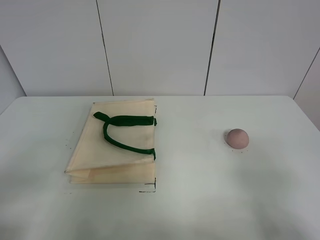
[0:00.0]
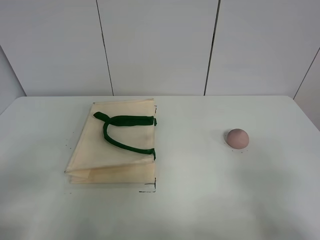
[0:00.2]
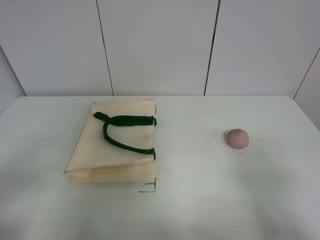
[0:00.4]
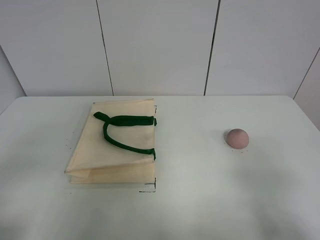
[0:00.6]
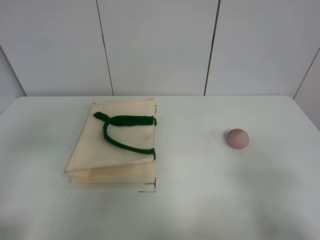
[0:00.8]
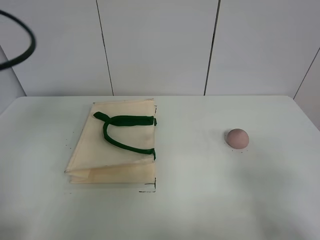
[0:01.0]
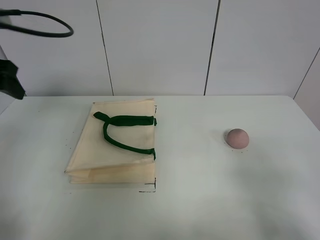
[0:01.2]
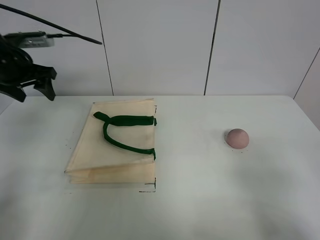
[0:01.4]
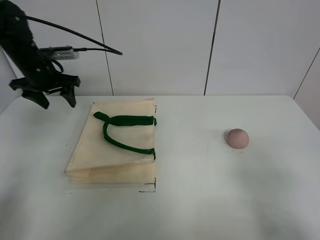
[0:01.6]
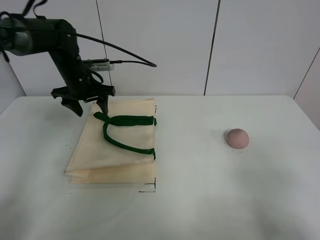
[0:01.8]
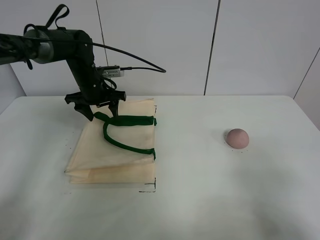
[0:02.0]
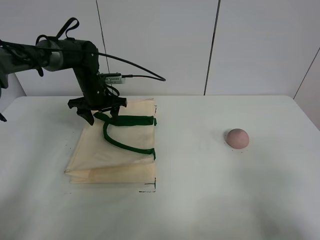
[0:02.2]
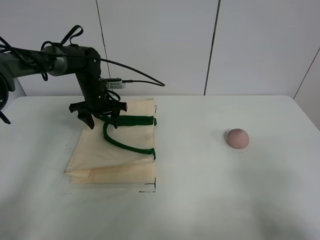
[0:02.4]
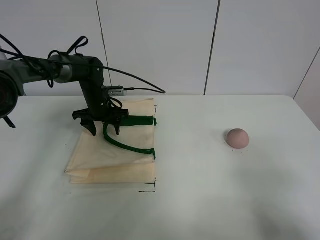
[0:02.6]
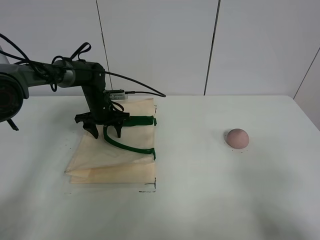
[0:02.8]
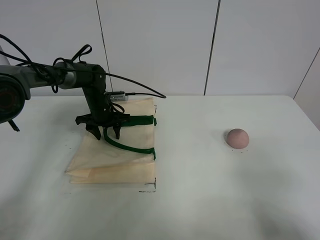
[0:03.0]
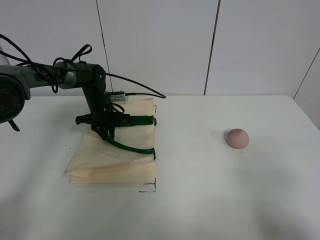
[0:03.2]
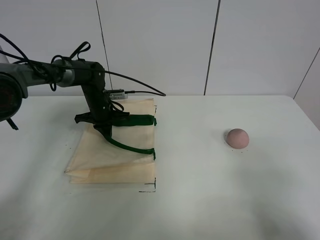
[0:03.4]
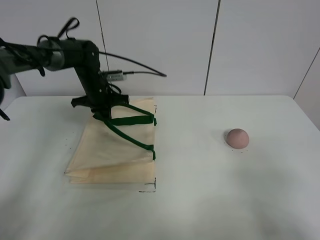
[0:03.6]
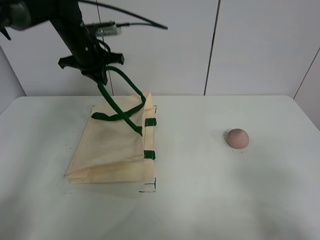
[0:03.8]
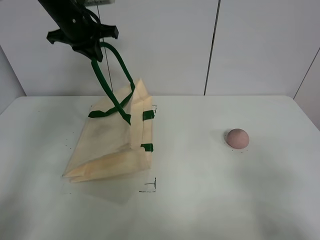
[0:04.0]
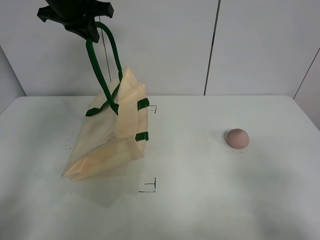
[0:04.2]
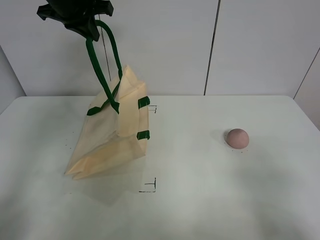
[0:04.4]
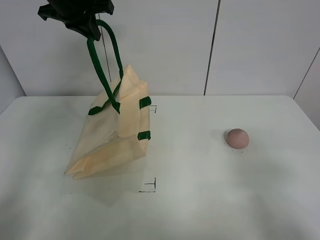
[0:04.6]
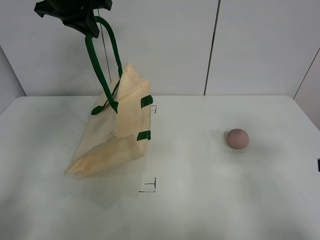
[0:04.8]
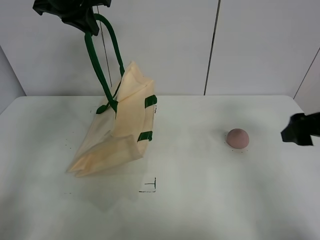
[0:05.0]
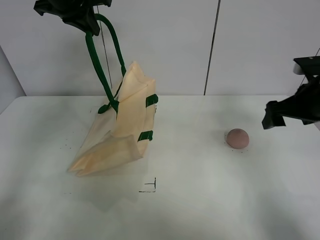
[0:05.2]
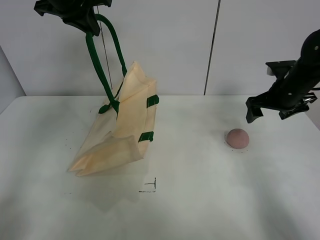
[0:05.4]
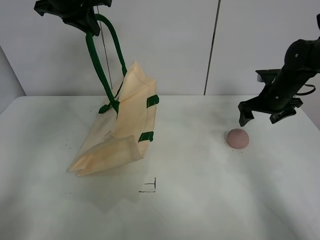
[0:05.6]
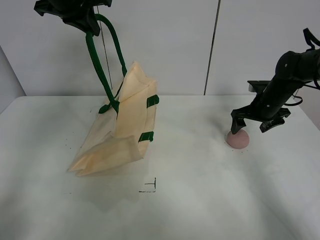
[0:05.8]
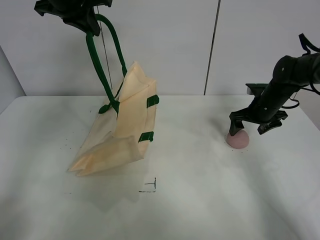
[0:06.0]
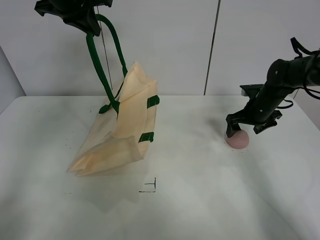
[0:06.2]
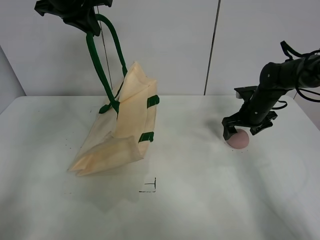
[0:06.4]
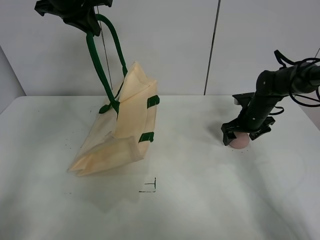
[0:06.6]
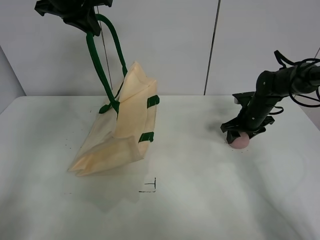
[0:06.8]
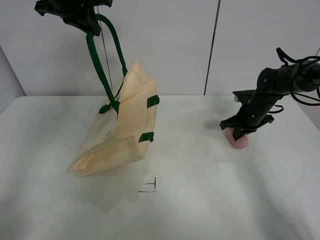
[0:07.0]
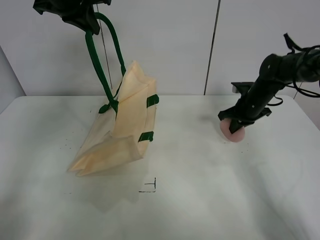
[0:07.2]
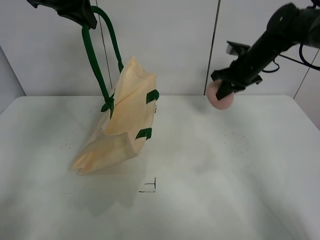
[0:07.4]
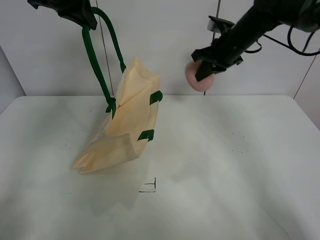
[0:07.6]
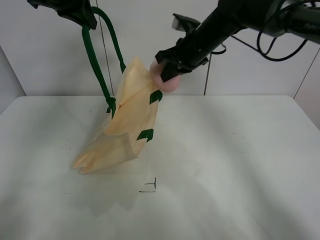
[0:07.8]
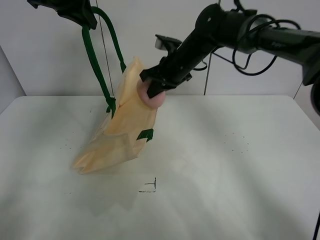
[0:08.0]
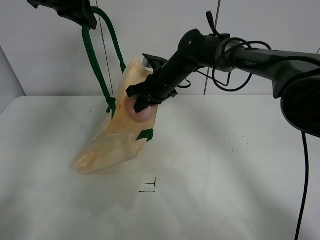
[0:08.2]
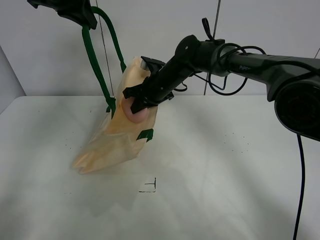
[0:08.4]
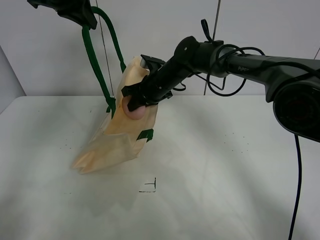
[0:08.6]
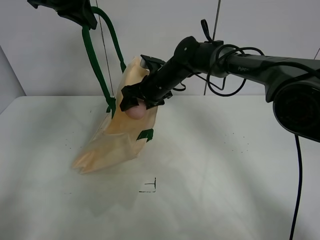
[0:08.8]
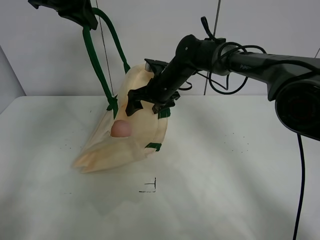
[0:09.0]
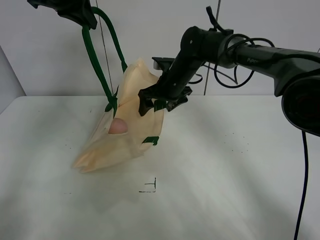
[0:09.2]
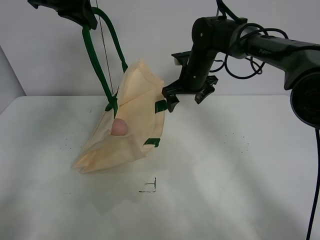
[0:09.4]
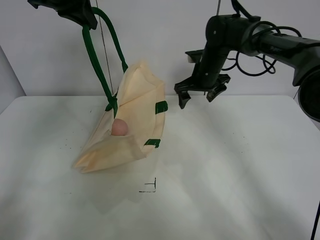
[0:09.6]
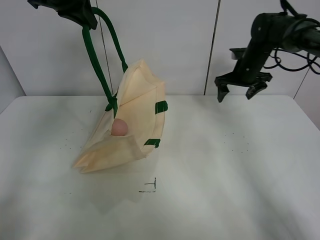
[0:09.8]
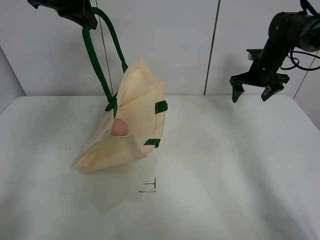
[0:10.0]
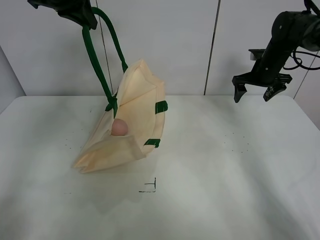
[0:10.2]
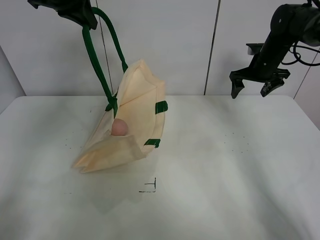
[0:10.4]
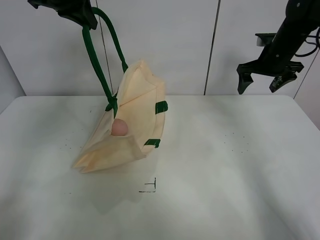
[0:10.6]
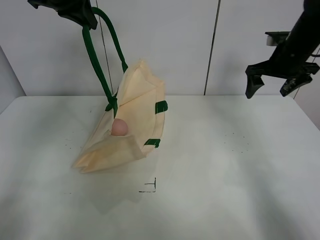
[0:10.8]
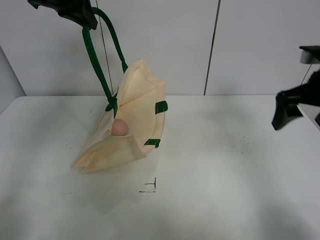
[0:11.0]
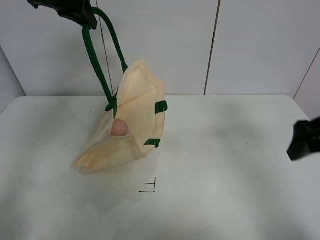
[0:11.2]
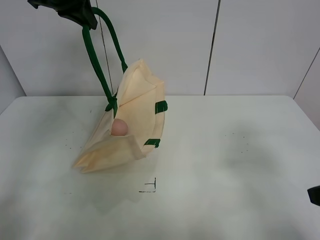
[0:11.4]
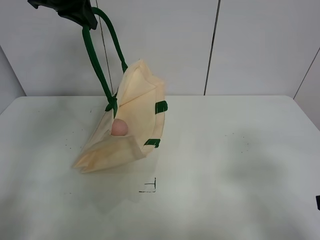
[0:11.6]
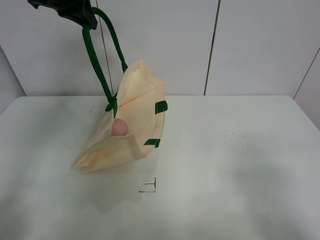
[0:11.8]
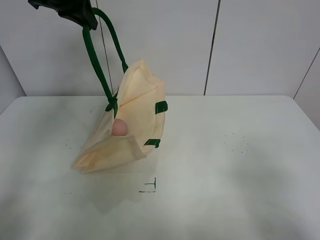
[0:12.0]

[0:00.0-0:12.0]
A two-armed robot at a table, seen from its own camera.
Task of the whole recording: open the white linen bag and put the peach in the bag.
Step, 0:00.0 to 0:04.4: Lift the handbag with left gripper.
Step, 0:04.6 to 0:07.0: Grasp the peach with right gripper.
Step, 0:07.2 to 0:09.2: Place the peach in the handbag with right gripper.
0:00.0 to 0:01.6: The left gripper is displaced forward by roughly 40 cm.
0:01.6 to 0:03.0: The left gripper goes about 15 cm downward and to the right.
0:03.0 to 0:04.4: The left gripper moves upward, about 30 cm, and closes up.
0:04.4 to 0:06.0: The right gripper goes roughly 40 cm forward.
0:06.0 to 0:07.6: The right gripper moves upward and to the left, roughly 20 cm, and closes.
0:07.6 to 0:09.0: The right gripper travels to the left and downward by about 15 cm, and opens its fingers.
0:09.0 to 0:10.4: The right gripper is displaced to the right by approximately 25 cm.
0:10.4 to 0:12.0: The right gripper shifts roughly 50 cm backward.

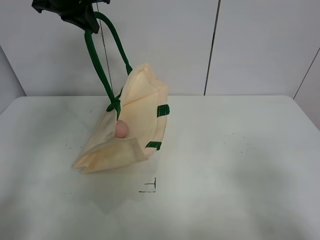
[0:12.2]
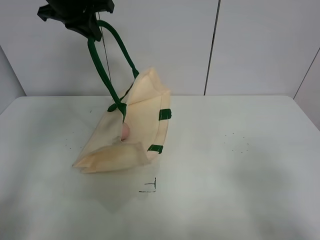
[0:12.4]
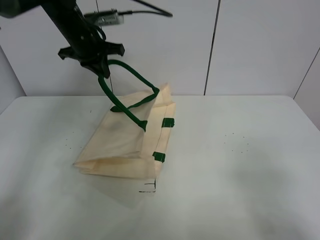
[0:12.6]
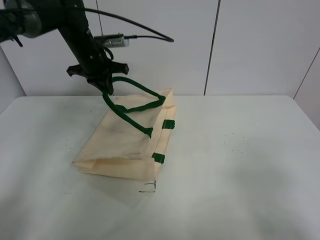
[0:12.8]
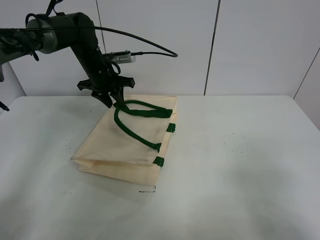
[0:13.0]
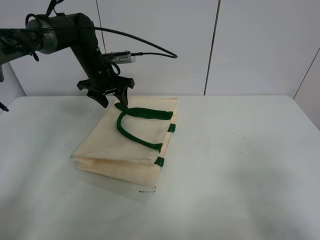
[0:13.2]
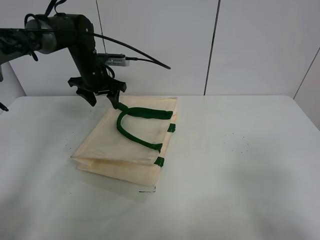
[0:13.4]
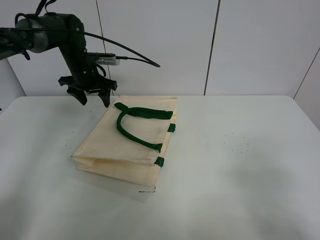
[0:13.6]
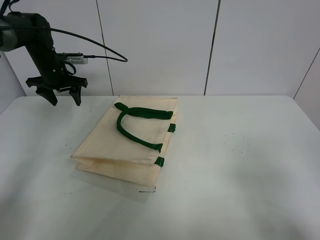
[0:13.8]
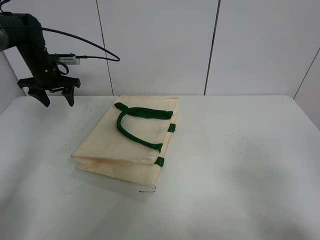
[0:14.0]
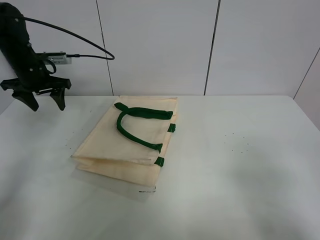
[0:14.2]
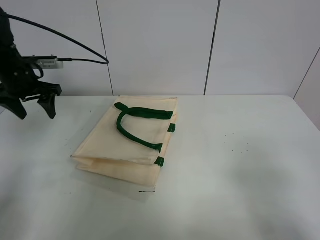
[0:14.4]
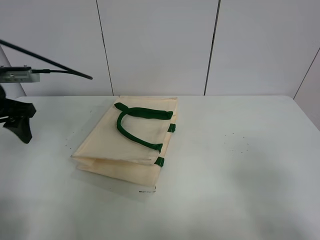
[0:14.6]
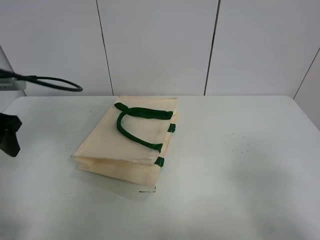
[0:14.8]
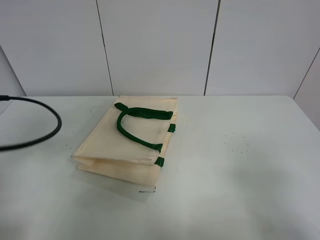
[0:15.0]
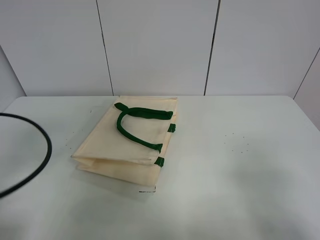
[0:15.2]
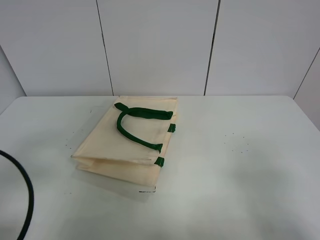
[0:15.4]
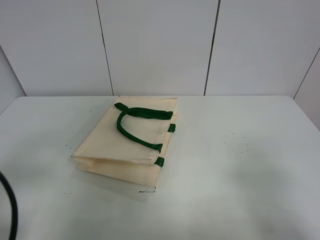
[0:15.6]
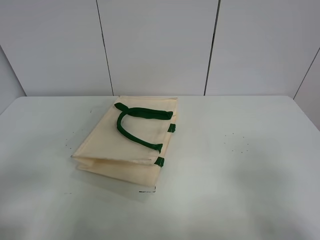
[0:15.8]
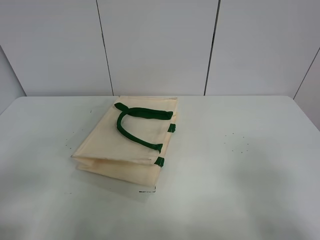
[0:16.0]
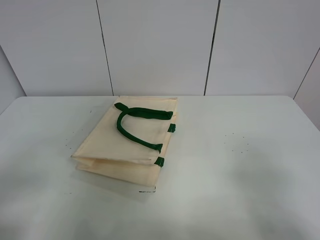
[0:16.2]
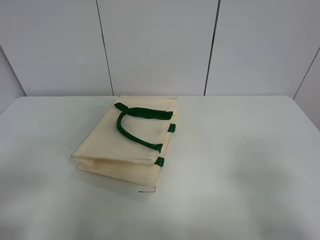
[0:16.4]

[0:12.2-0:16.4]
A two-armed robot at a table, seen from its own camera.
Task of the whole recording: open the white linen bag and put the peach in the bag.
0:12.2 to 0:13.6: The left gripper heads downward, covering about 20 cm, and opens.
0:13.6 to 0:15.0: The left gripper goes some 35 cm backward.
0:15.0 to 0:16.4: The left gripper shifts some 15 cm backward.

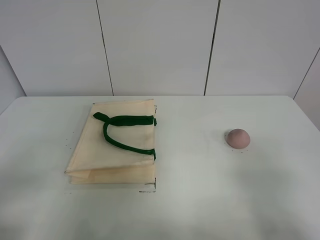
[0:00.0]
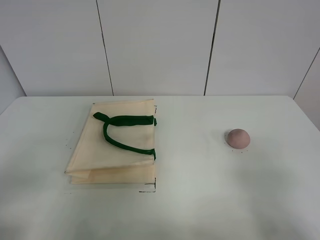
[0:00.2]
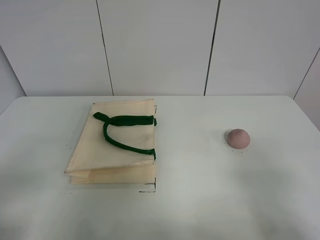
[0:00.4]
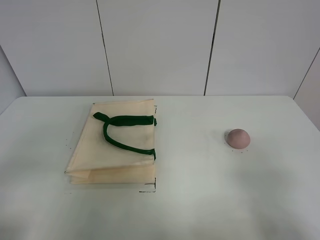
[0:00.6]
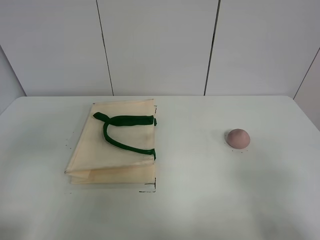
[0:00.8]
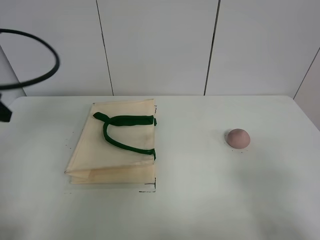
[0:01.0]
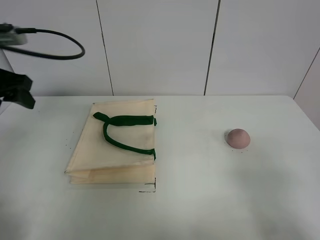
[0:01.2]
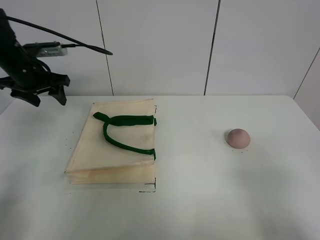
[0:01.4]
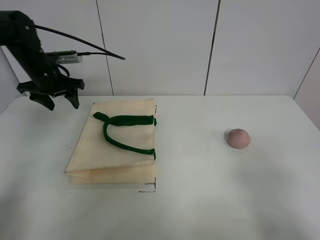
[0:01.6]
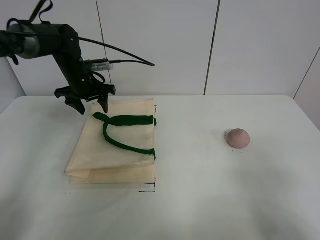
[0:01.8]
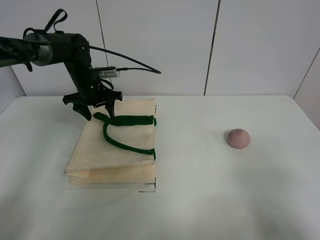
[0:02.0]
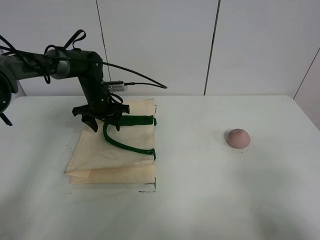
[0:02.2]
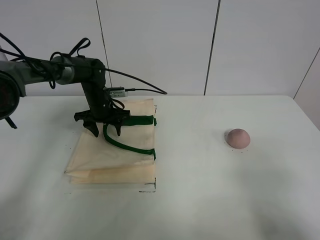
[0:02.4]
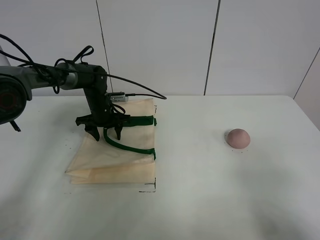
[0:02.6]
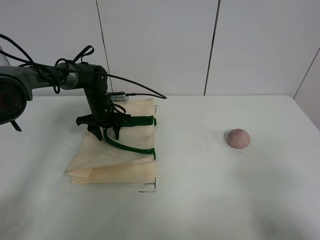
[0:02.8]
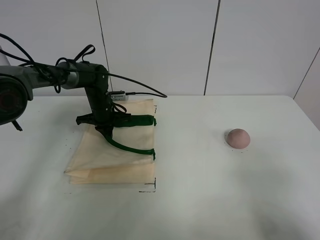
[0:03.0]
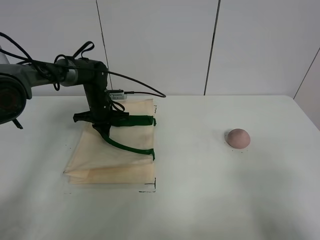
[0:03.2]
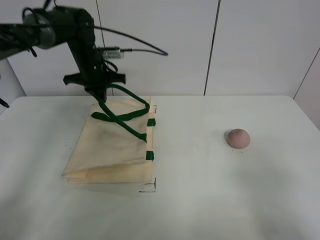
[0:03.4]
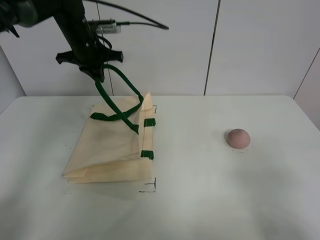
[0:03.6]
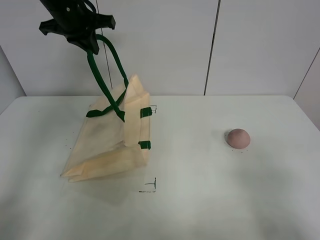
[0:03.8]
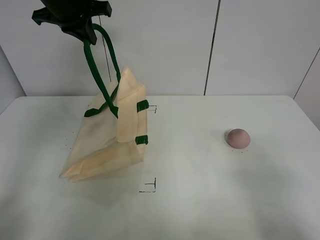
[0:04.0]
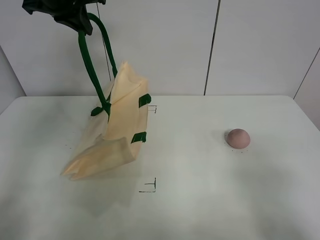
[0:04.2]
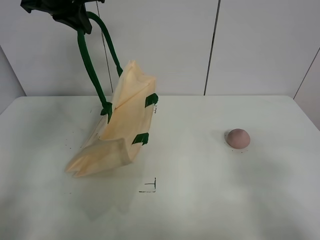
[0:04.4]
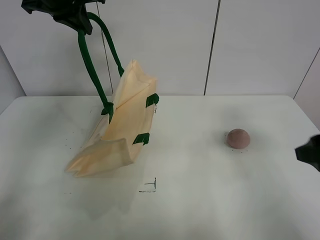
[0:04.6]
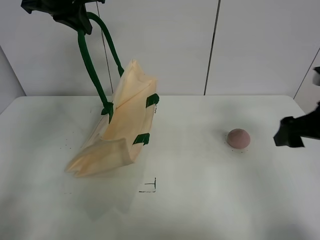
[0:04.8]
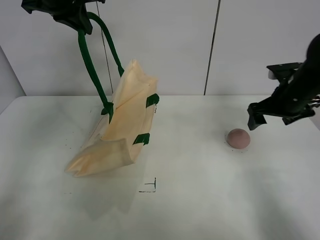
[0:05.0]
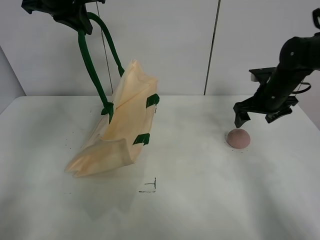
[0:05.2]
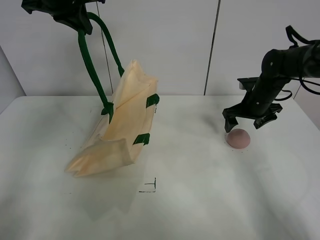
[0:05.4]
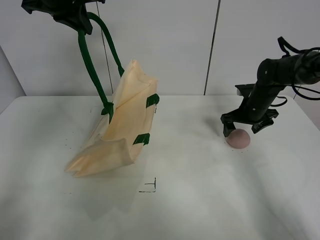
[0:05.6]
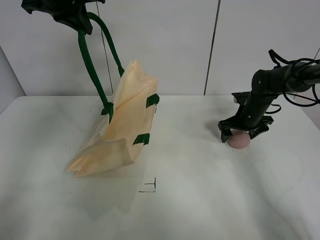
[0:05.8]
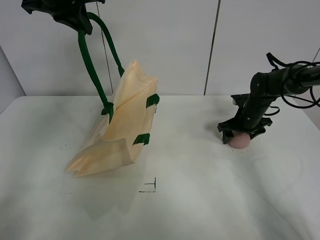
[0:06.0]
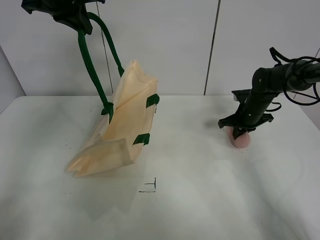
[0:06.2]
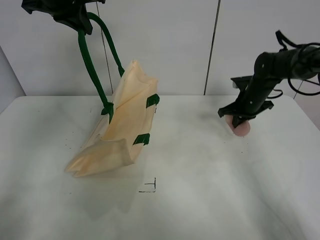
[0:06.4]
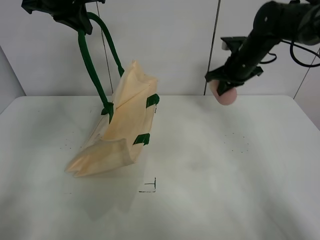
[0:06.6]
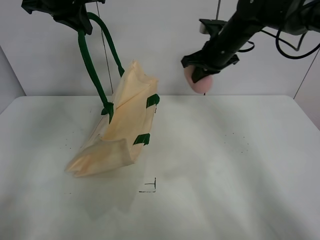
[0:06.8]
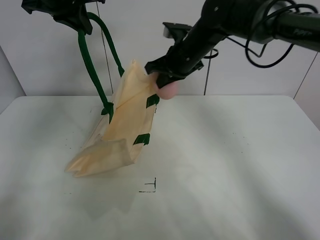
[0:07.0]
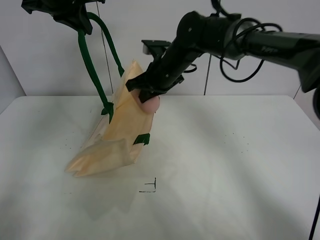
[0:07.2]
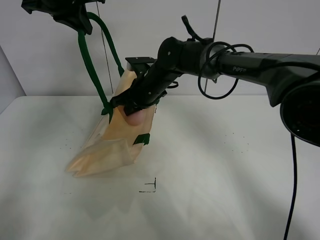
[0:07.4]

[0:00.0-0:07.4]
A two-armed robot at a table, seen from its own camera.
Task of the whole recording: open the white linen bag and put the peach in the bag.
Step, 0:00.0 to 0:04.0: Lift the handbag with left gripper.
Step, 0:04.2 to 0:06.4: Grasp the peach with right gripper.
0:00.0 to 0:01.4: The left gripper moves forward, roughly 40 cm.
0:01.4 to 0:03.0: The left gripper is displaced downward, to the right and forward by about 20 cm, and closes its fingers.
0:03.0 to 0:04.4: The right gripper is displaced forward by some 5 cm; the left gripper goes about 30 cm upward.
0:04.4 to 0:06.0: The right gripper moves forward and downward, about 40 cm.
0:06.0 to 0:07.4: The right gripper moves to the left, roughly 30 cm, and closes.
